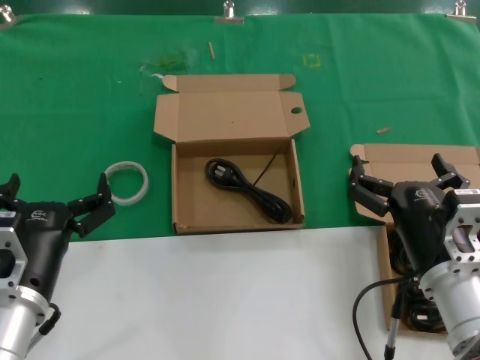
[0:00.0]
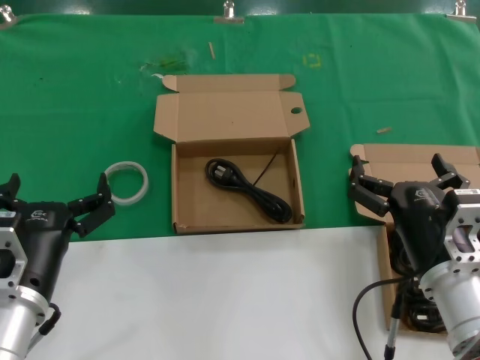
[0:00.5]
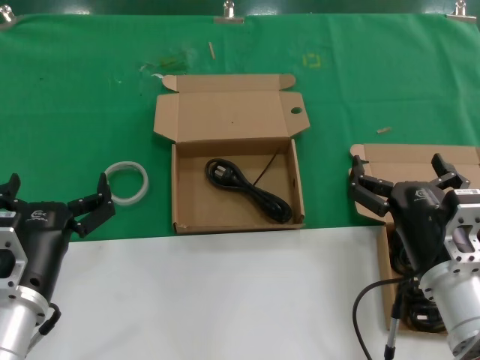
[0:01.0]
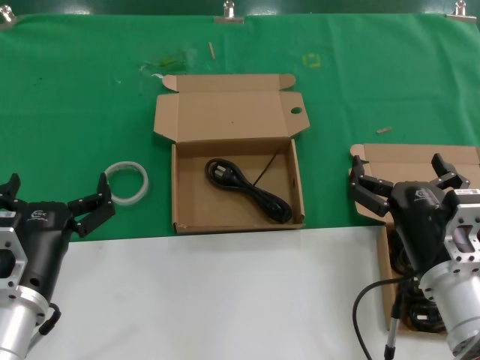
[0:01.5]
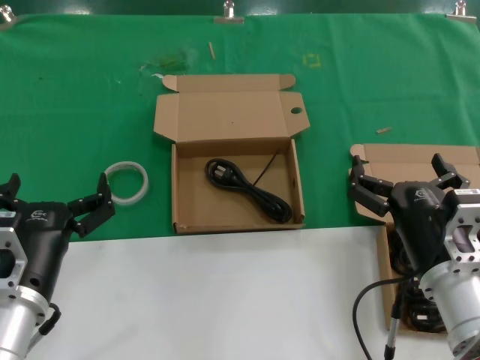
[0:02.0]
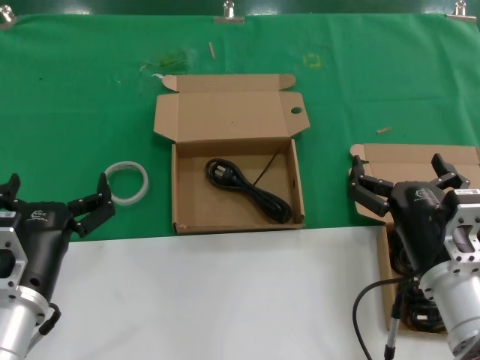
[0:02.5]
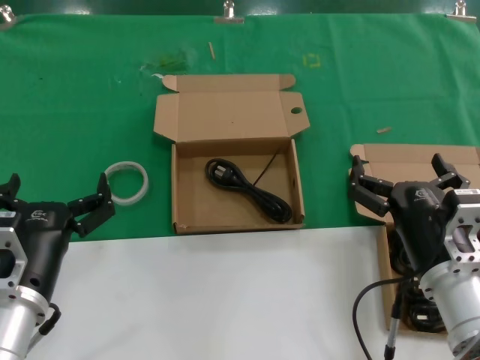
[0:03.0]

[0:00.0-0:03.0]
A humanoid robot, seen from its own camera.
Task of the whole recording: take the parts from the box containing them and put them into an empty box.
0:00.0 to 0:03.0: Neither hand changes place.
